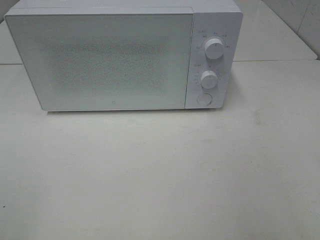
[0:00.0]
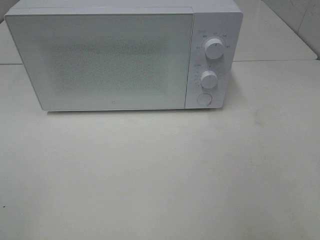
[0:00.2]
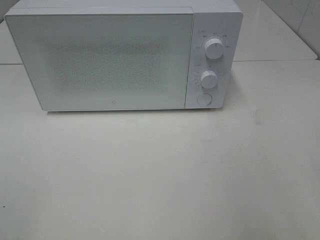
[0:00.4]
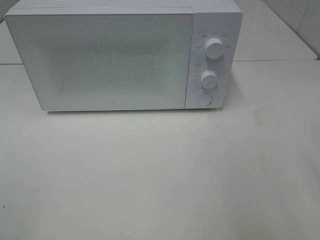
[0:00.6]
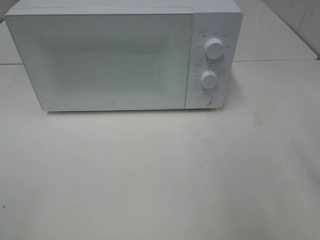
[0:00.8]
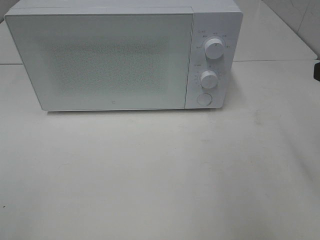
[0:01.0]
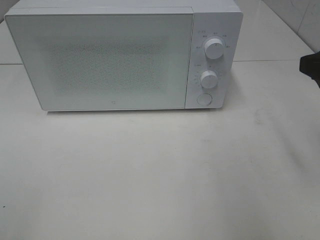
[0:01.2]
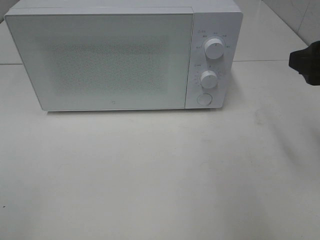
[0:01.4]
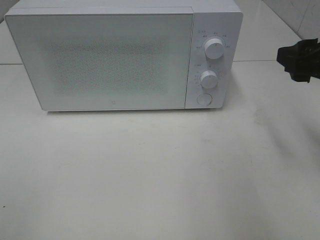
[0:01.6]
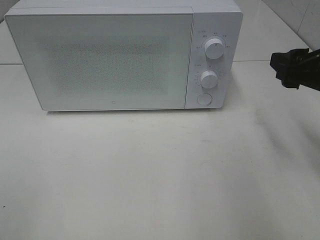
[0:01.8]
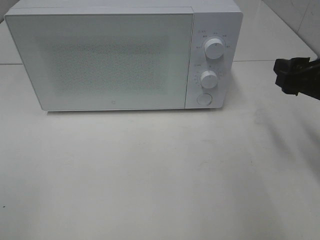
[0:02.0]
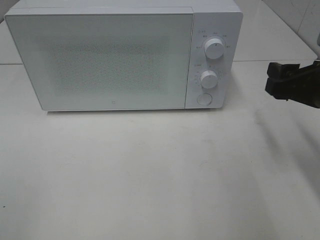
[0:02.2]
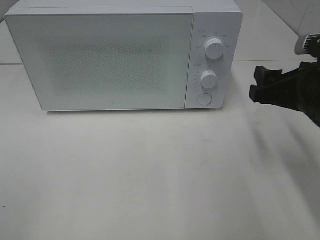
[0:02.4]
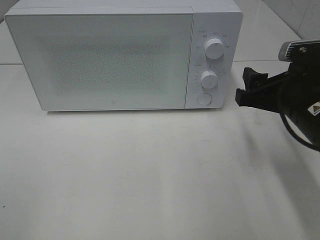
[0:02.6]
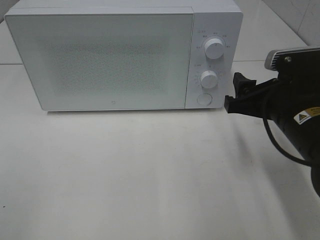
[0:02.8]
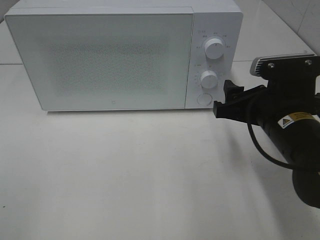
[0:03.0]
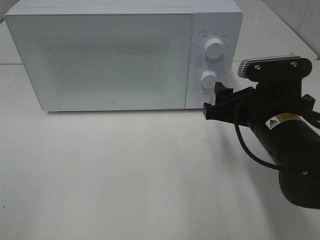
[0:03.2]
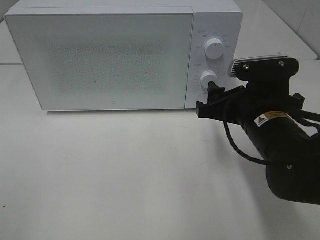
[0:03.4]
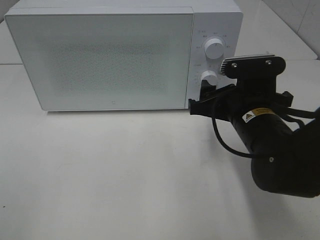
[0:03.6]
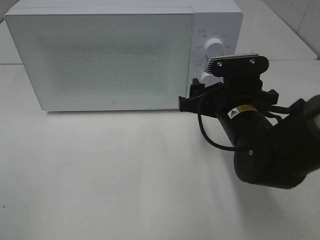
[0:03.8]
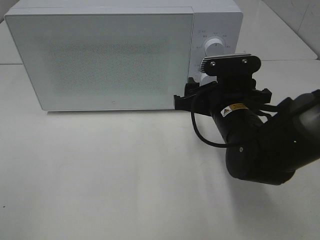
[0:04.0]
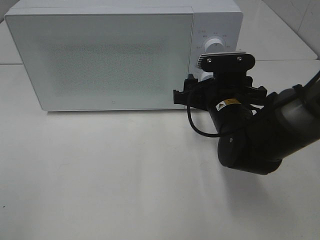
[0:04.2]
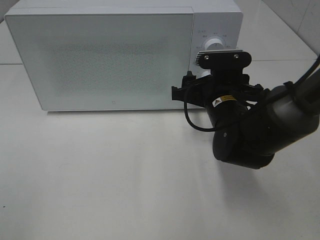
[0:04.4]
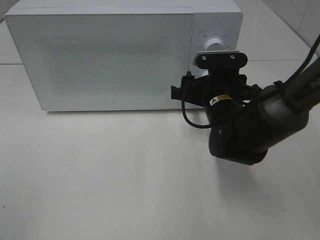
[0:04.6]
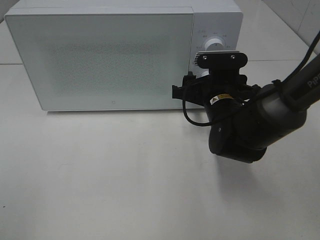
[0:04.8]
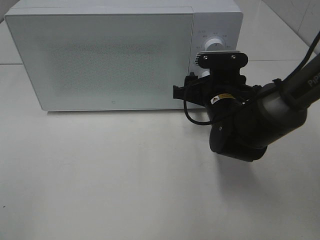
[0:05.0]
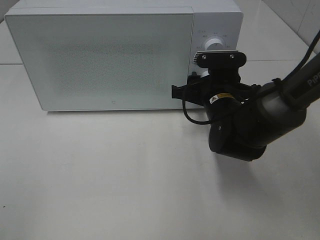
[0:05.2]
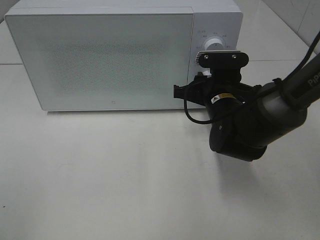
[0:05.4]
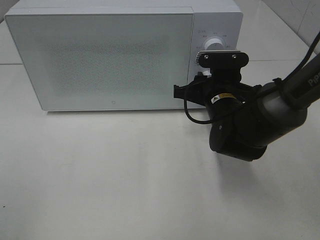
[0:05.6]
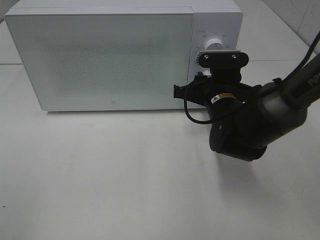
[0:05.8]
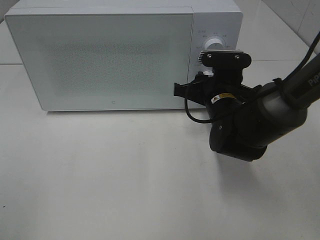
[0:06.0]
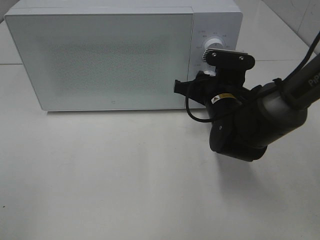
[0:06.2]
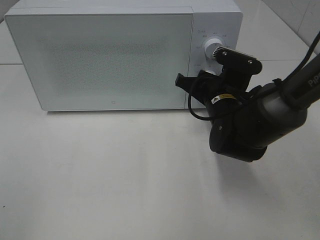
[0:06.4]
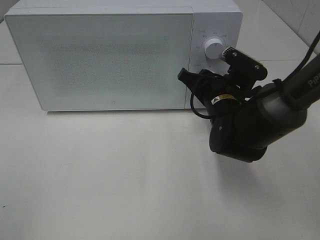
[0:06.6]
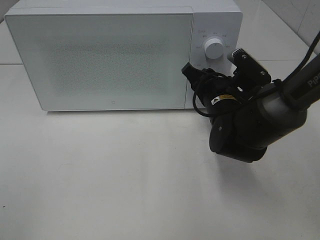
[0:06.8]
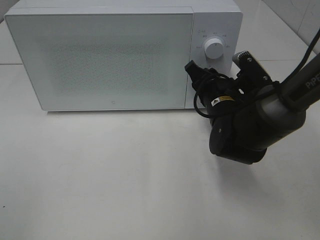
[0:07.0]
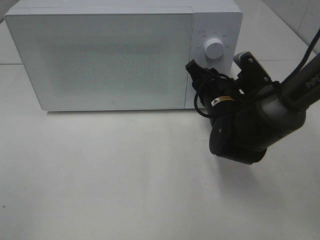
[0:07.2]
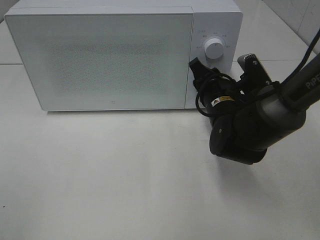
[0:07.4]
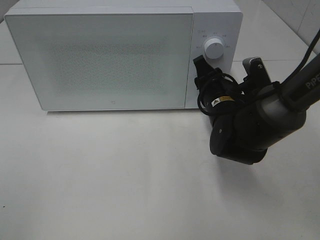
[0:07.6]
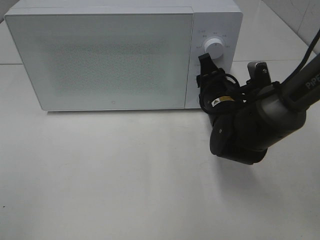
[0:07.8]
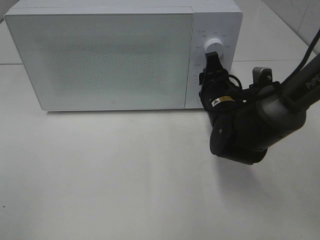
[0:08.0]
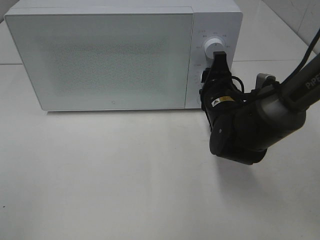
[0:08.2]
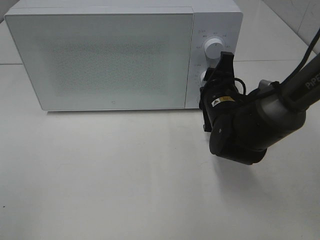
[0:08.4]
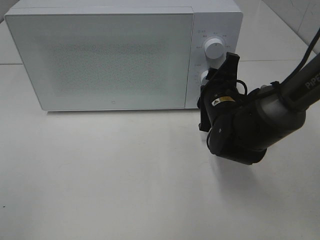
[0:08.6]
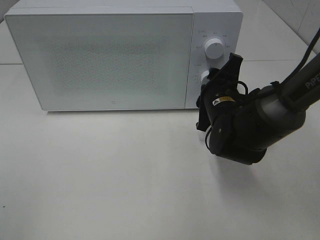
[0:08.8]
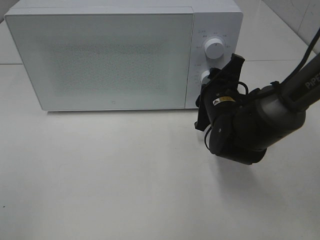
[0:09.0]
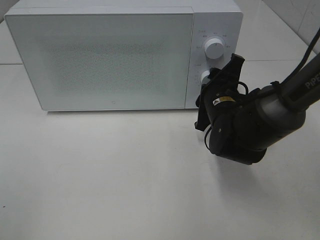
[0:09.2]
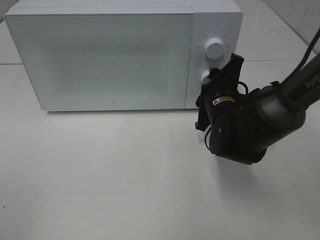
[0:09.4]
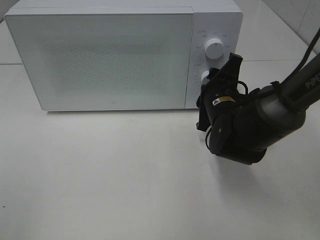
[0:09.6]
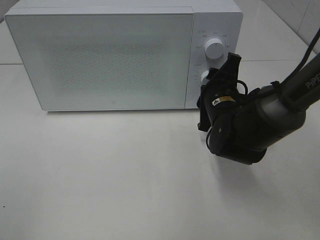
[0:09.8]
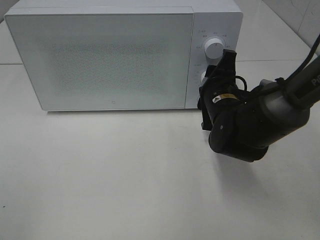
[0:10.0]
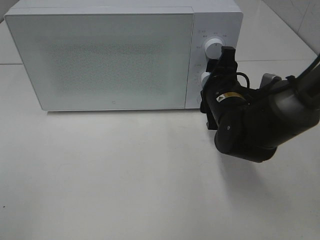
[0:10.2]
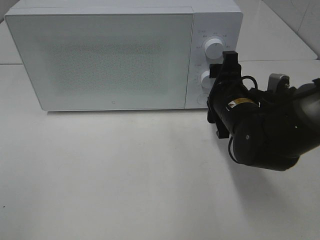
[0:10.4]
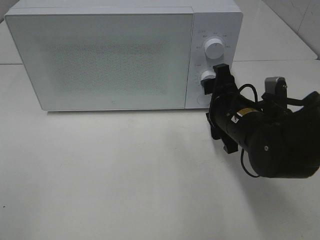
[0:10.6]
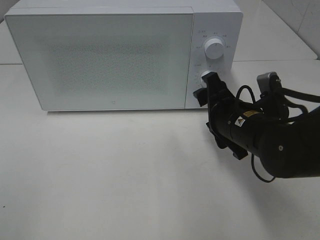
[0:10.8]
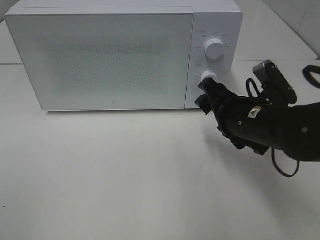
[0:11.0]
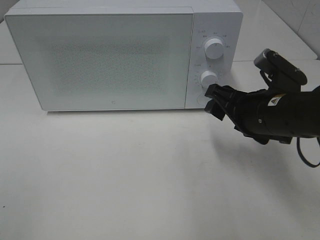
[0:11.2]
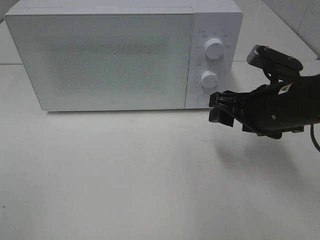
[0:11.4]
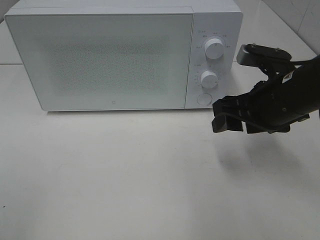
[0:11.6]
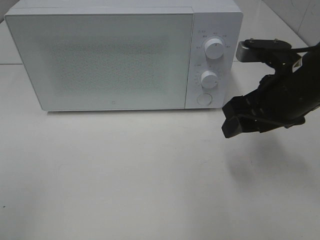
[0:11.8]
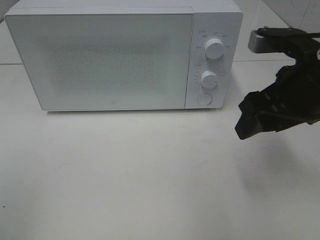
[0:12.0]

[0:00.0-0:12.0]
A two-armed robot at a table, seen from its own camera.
Task of the whole recording: Heat the burger.
Step, 0:00.0 to 0:10.4: Right hand: twist timer button.
0:00.0 to 0:01.6: The right gripper is displaced forward by approximately 15 cm.
0:01.6 to 0:03.0: The right gripper heads downward and to the left, covering approximately 10 cm.
0:03.0 to 0:04.4: The right gripper travels forward and to the left by about 10 cm.
0:04.4 to 0:06.0: The right gripper closes its fingers.
0:10.4 to 0:12.0: The right gripper moves upward, backward and to the right, approximately 15 cm.

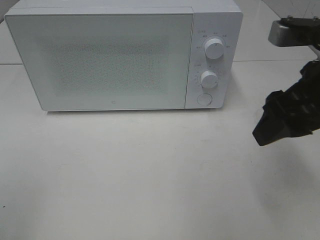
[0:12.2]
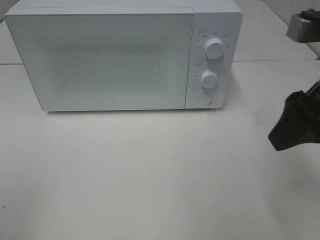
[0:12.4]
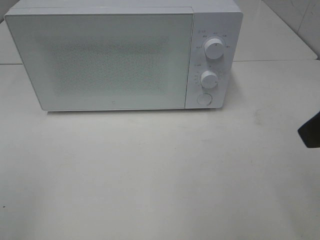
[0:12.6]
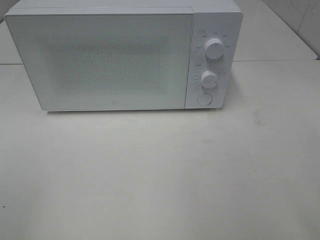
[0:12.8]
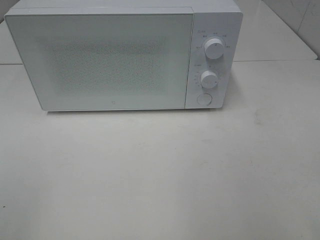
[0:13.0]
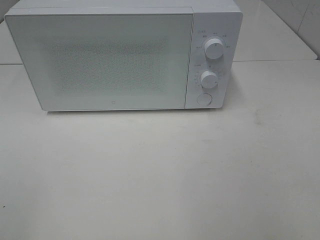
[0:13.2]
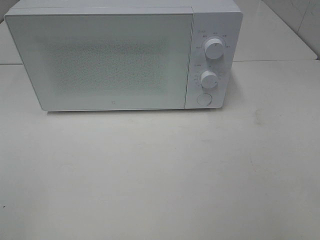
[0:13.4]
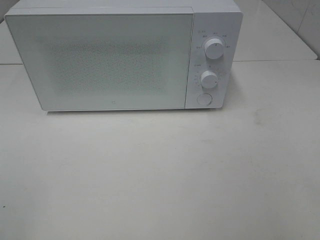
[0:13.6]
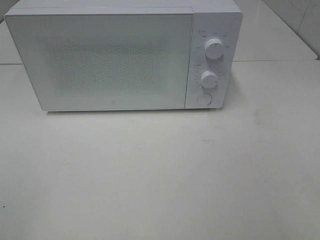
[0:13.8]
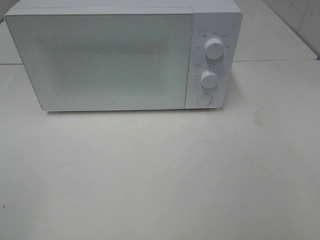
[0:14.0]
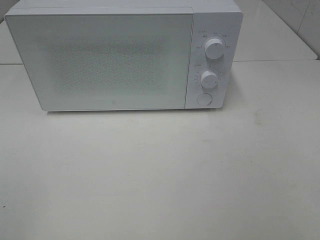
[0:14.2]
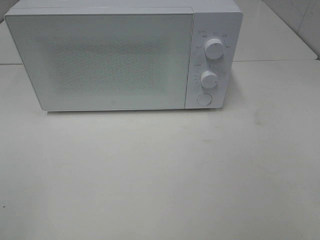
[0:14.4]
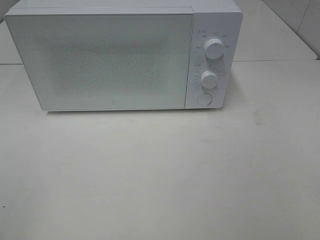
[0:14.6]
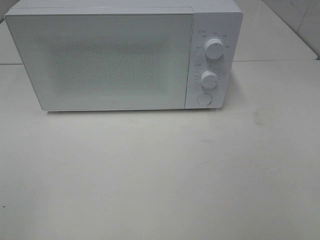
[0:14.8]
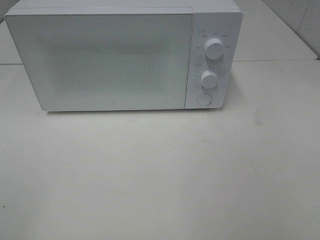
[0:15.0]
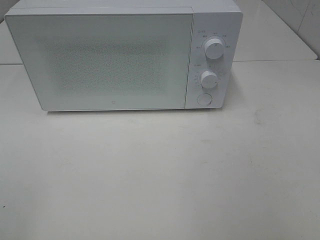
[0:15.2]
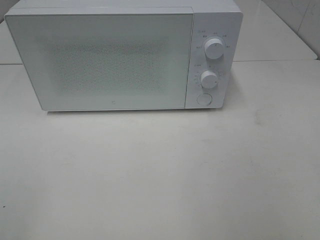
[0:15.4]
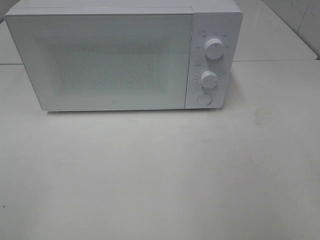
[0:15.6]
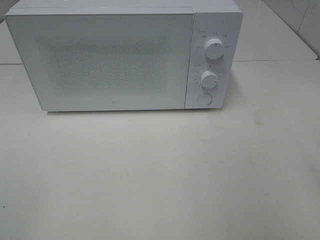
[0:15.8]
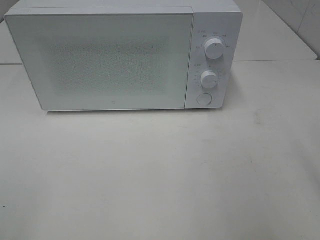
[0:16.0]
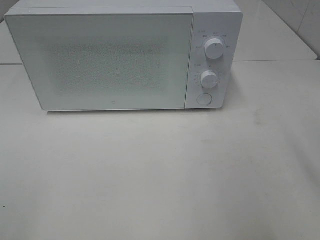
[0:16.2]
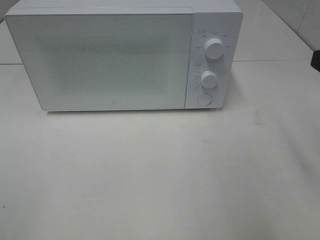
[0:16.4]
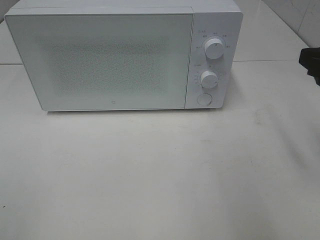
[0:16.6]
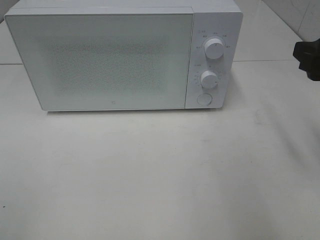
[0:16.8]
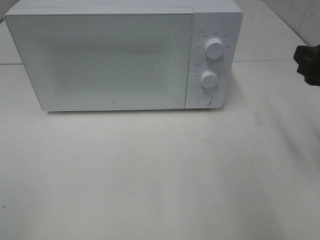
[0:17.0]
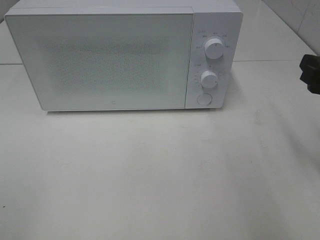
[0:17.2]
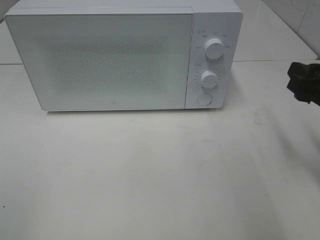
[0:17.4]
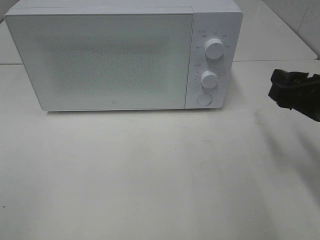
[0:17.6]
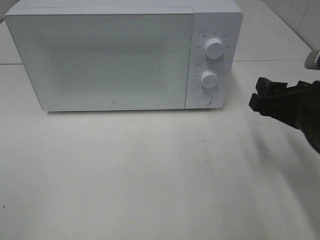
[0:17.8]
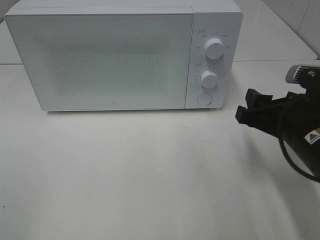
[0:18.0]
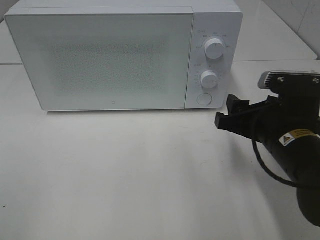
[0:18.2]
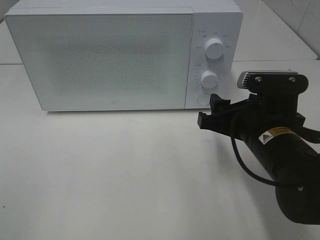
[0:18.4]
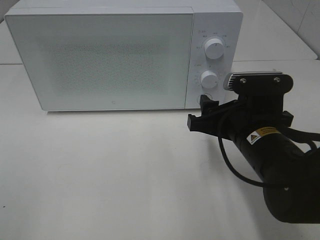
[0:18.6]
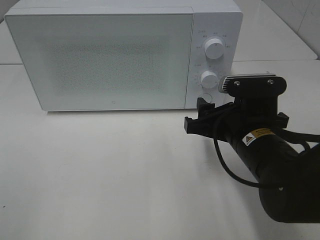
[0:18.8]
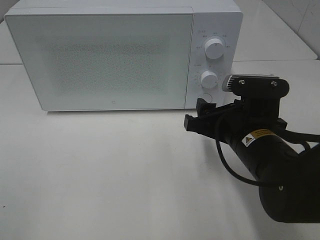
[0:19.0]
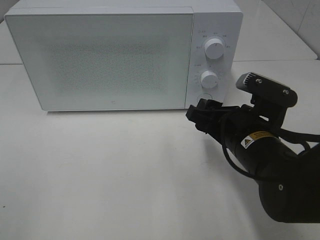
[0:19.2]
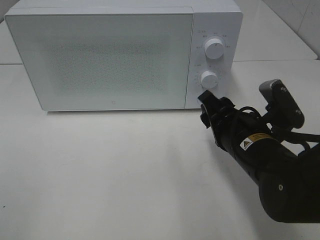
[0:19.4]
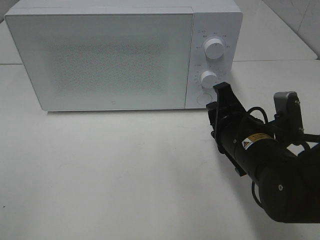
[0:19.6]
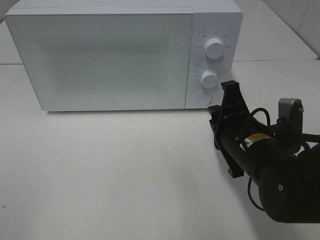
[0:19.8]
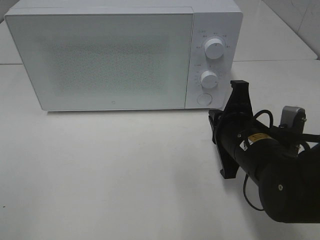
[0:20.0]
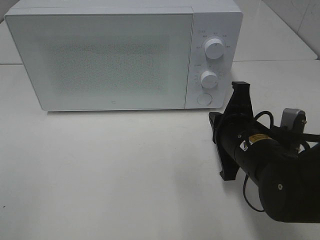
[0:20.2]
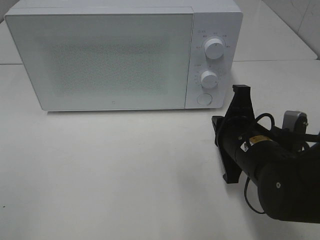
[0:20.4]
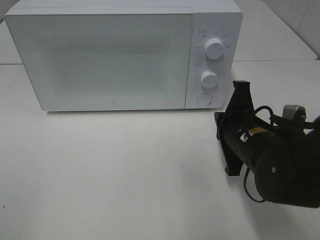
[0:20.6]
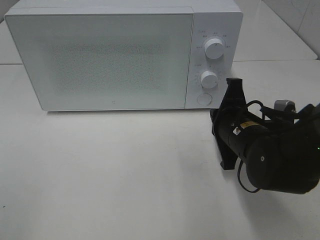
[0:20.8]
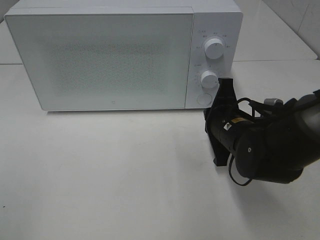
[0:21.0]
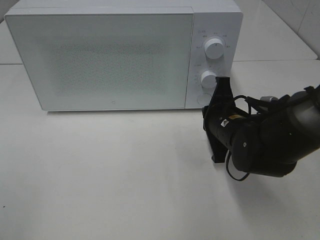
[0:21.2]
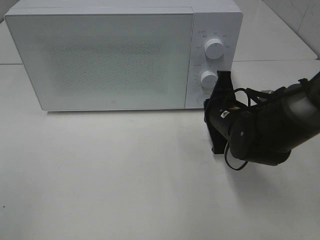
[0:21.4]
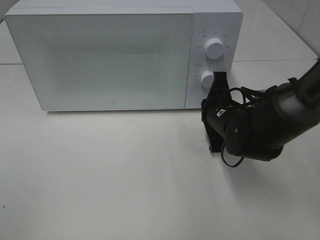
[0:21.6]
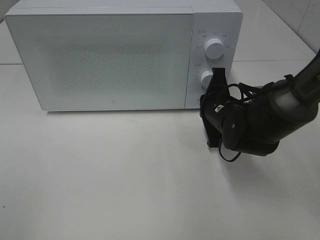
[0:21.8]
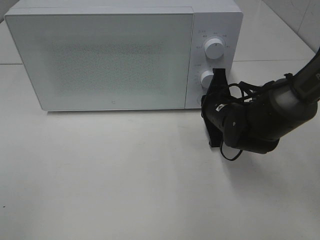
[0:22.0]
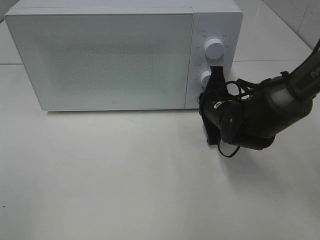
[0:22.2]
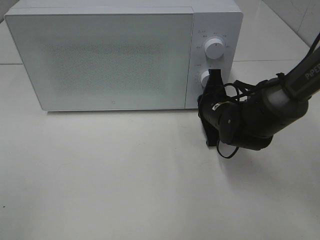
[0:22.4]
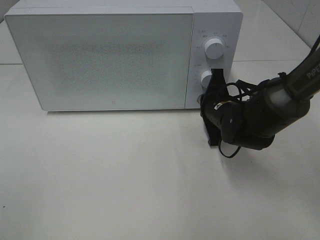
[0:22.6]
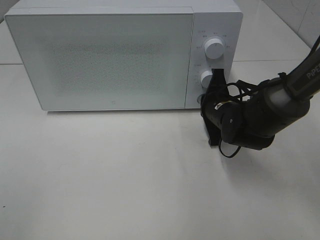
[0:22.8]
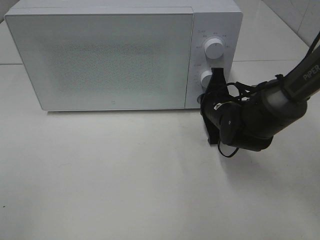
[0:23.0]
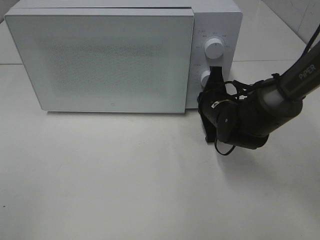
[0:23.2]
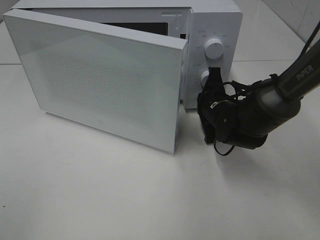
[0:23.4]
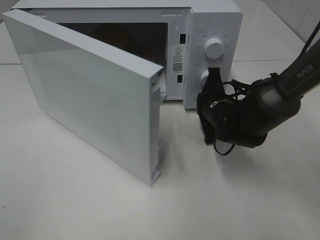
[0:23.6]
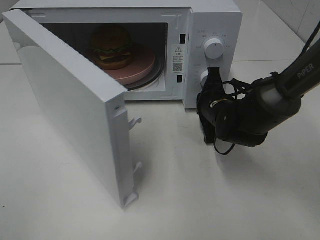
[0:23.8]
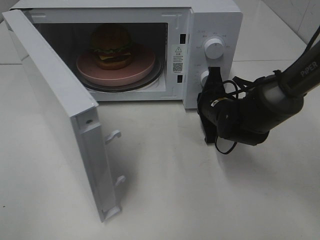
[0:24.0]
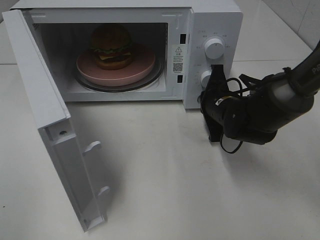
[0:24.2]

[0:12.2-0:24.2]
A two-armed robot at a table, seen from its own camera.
Task of the whole recording: Heat the burger.
0:12.2 to 0:13.8: The right gripper moves backward and to the right, approximately 20 cm.
0:15.2 to 0:16.6: The right gripper moves forward, some 15 cm.
0:16.6 to 0:18.2: The right gripper heads downward and to the left, covering some 15 cm.
0:18.2 to 0:19.8: The right gripper closes up.
0:19.8 to 0:21.2: The right gripper moves forward, roughly 5 cm.
0:21.2 to 0:22.6: The right gripper travels forward by about 5 cm.
